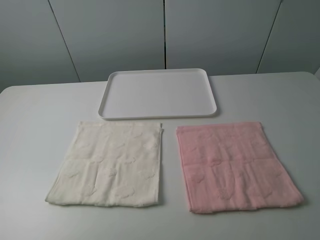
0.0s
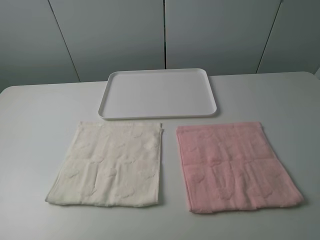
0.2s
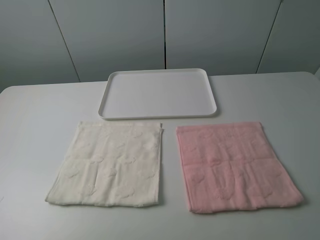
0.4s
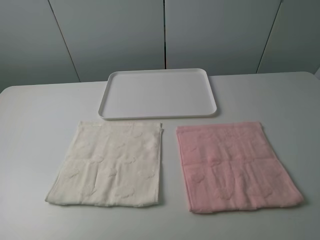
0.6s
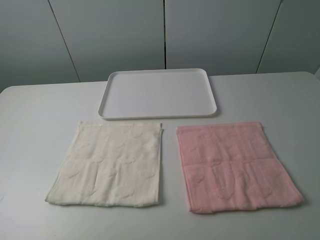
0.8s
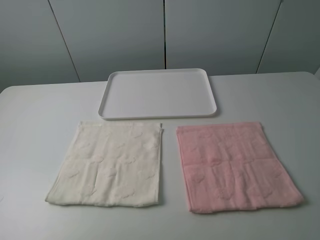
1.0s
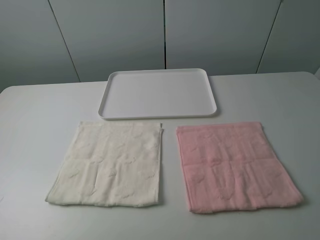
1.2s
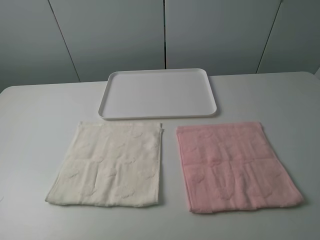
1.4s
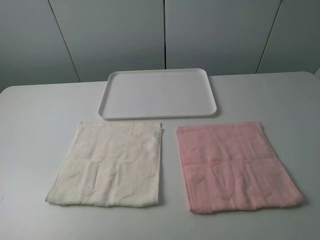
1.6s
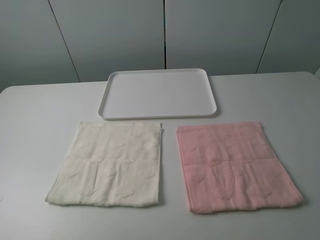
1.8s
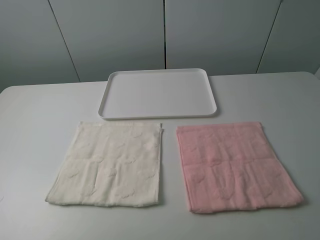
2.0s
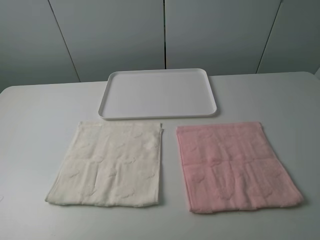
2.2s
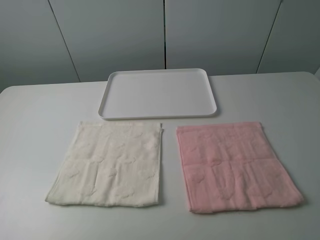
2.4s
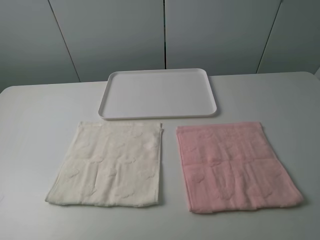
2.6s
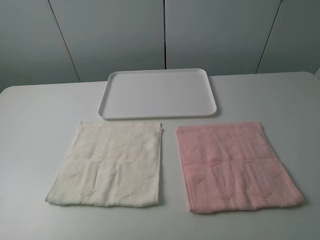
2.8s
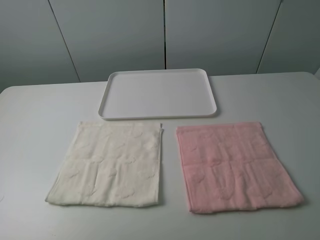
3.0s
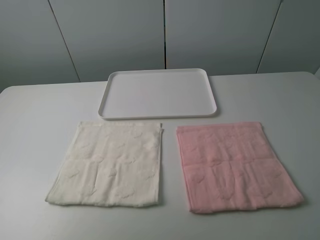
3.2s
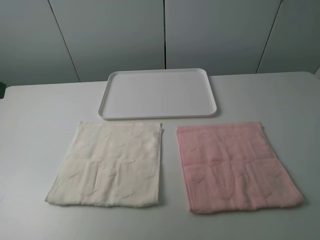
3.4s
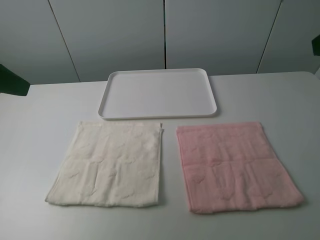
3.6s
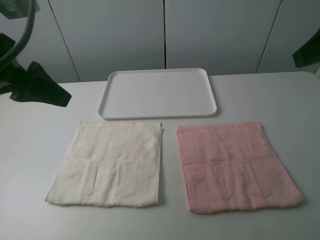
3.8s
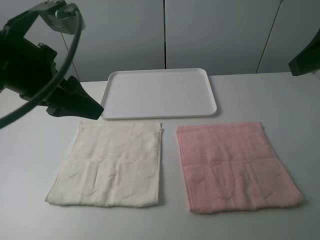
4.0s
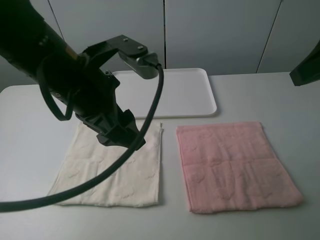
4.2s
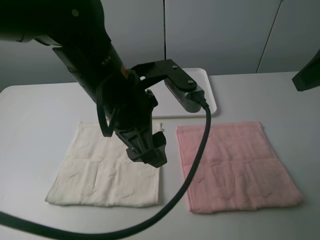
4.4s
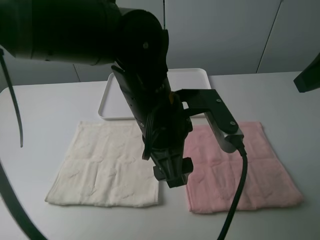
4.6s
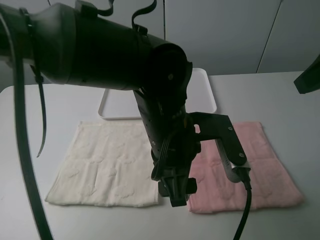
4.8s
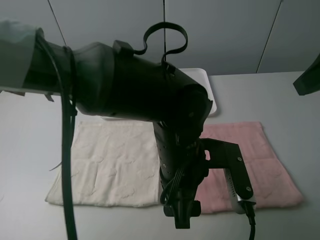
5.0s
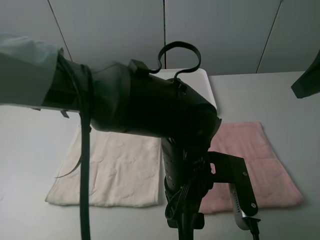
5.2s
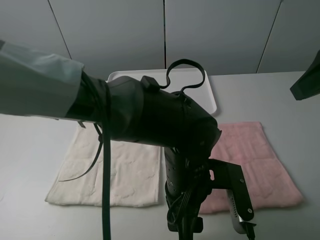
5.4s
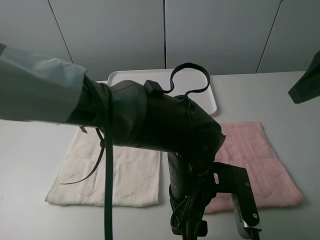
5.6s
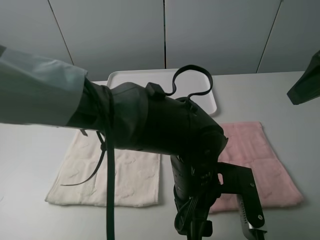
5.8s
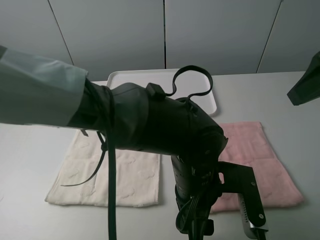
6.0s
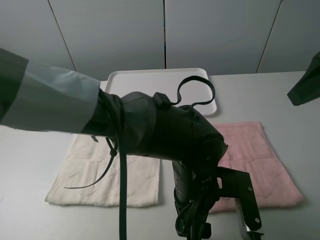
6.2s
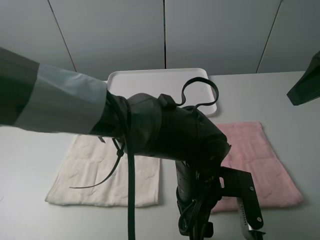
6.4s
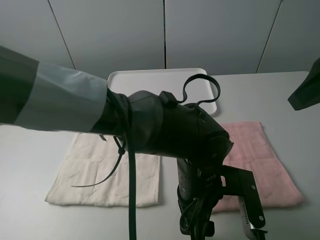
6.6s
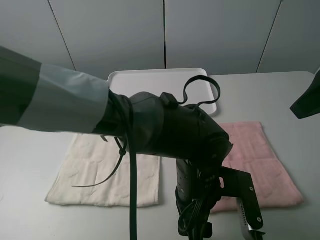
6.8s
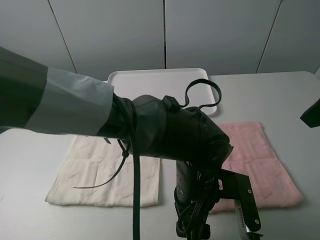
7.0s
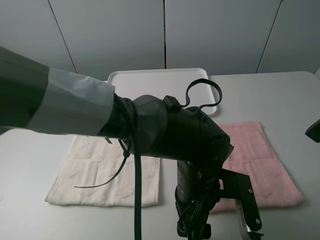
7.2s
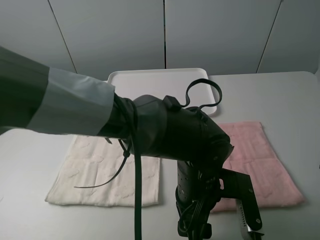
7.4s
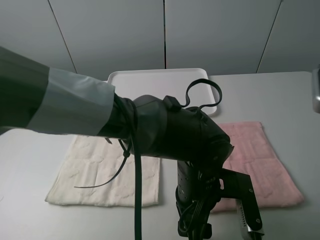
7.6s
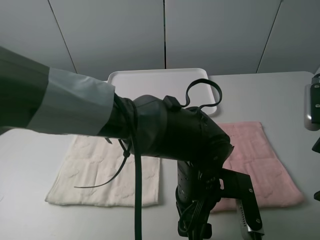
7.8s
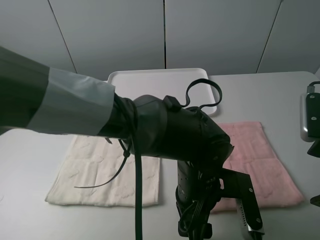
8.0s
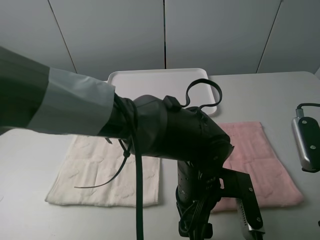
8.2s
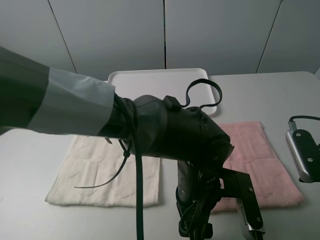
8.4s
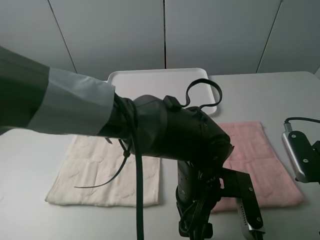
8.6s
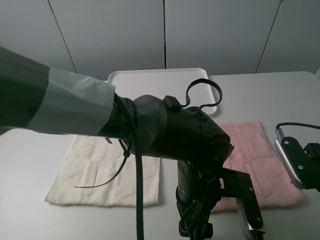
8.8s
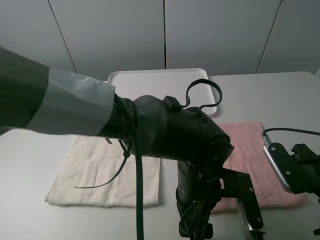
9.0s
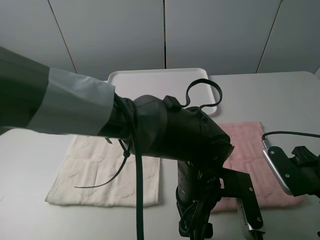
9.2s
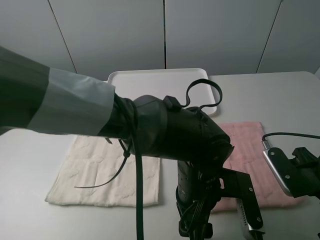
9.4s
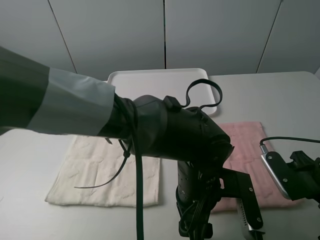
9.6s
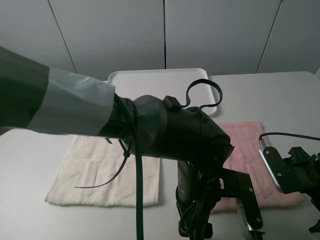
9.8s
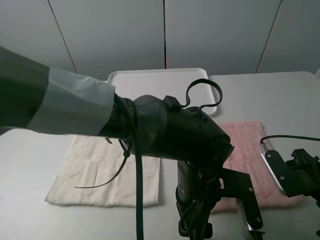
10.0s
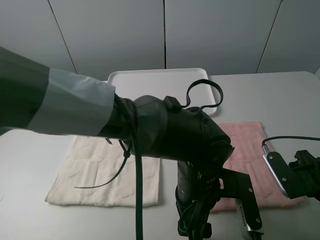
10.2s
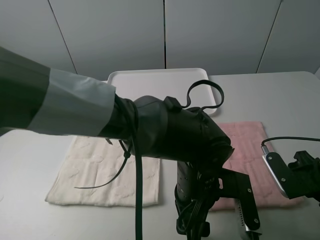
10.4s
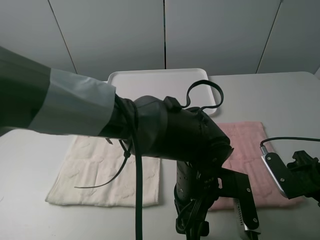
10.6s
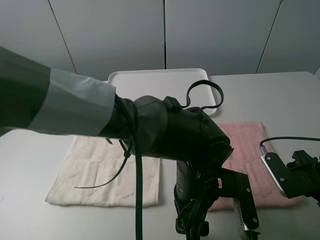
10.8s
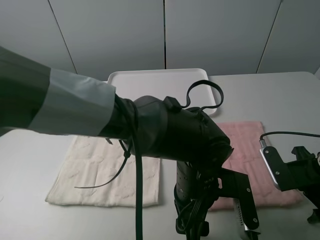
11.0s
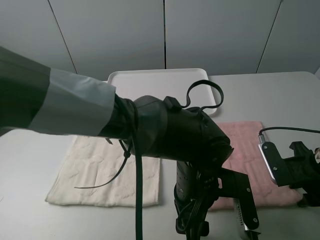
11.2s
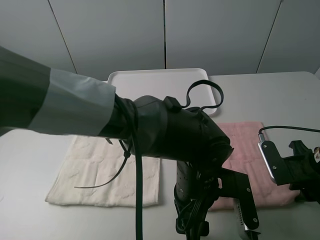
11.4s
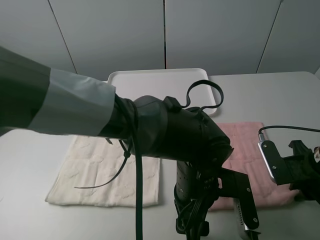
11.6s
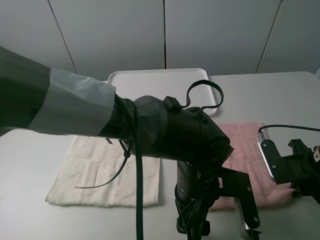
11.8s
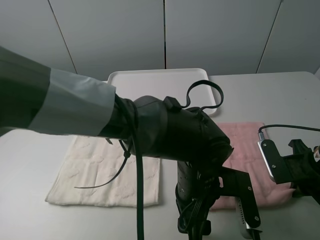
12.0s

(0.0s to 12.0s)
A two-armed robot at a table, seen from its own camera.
Task of the whole recording: fold one of the towels by two grippers and place it on the tray,then fold another towel by two grippers and place it on the folded towel.
0.0s - 1.6s: The two grippers keep their place.
3.0s - 4.4s: The left gripper travels to the right and forward by approximately 30 cm. Meanwhile the right gripper heads forward, covering approximately 15 cm.
4.4s - 6.0s: The left gripper is displaced downward, to the right and backward by some 15 cm.
6.0s - 7.6s: The right gripper travels downward by approximately 10 cm.
7.6s - 9.0s: The right gripper heads downward, covering approximately 10 cm.
9.0s - 10.4s: The grippers move only a little.
10.4s - 12.0s: The right gripper closes its fingers.

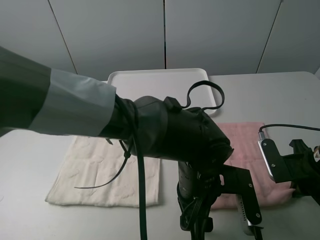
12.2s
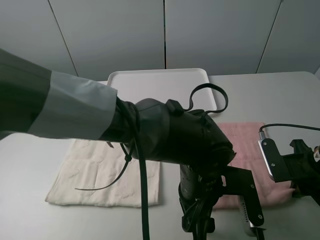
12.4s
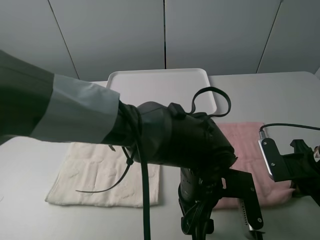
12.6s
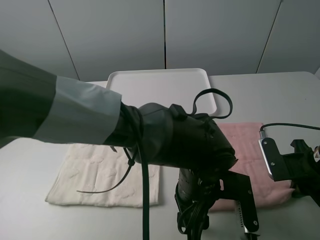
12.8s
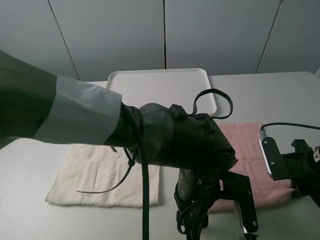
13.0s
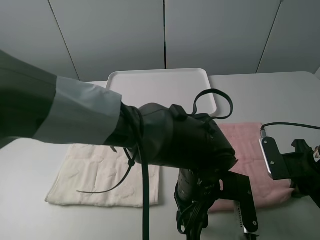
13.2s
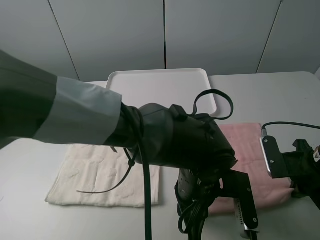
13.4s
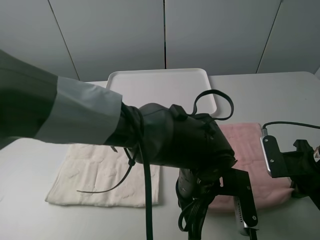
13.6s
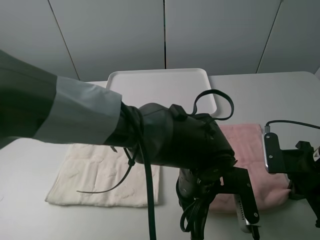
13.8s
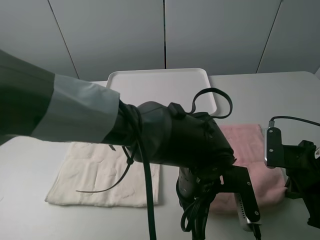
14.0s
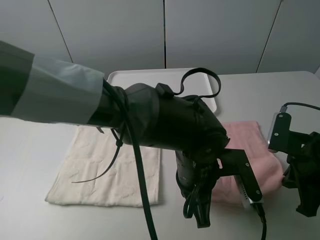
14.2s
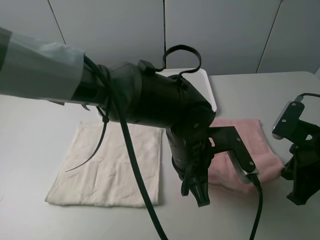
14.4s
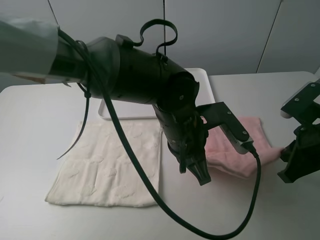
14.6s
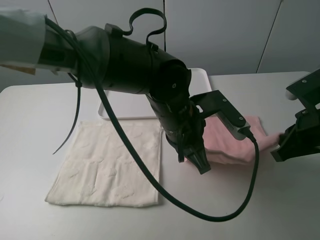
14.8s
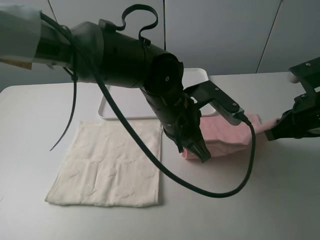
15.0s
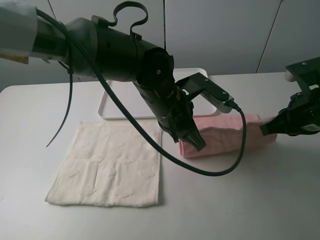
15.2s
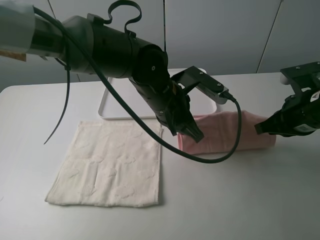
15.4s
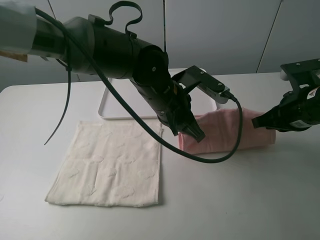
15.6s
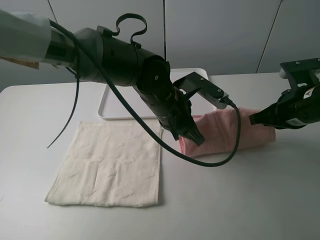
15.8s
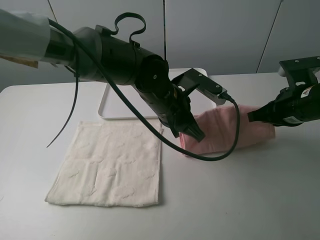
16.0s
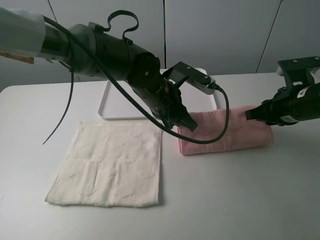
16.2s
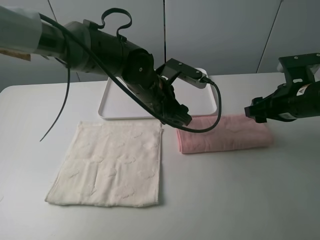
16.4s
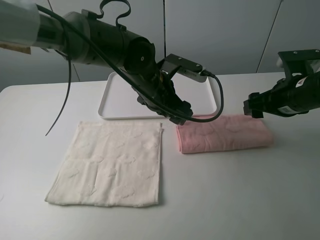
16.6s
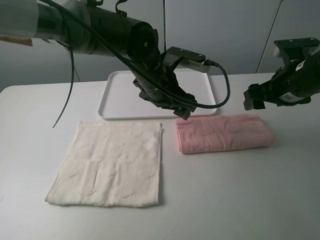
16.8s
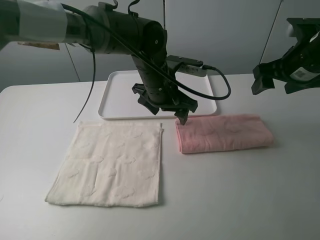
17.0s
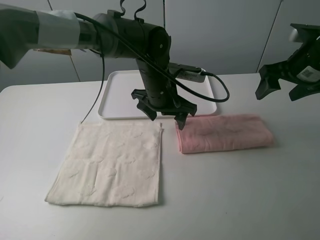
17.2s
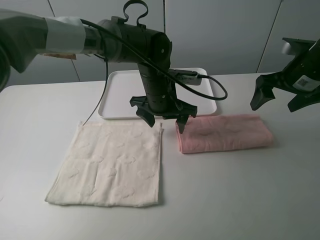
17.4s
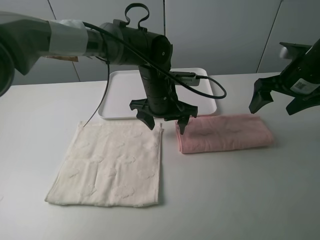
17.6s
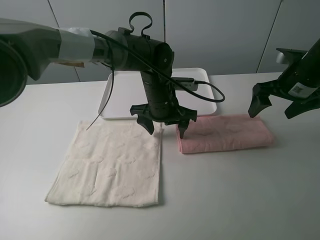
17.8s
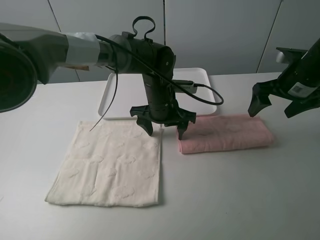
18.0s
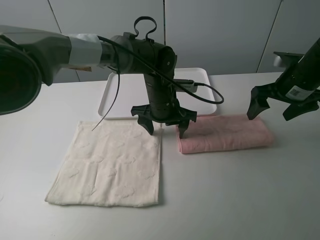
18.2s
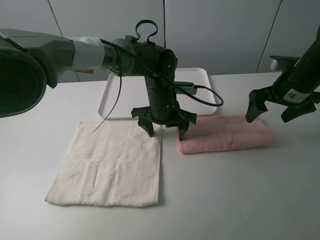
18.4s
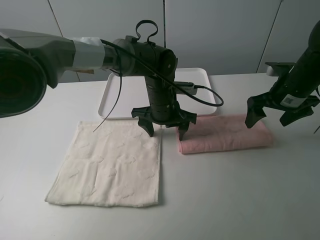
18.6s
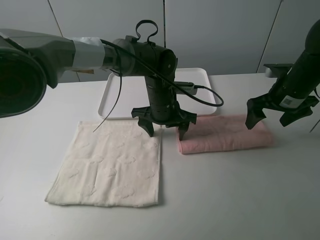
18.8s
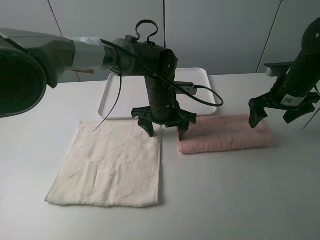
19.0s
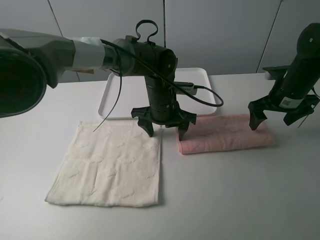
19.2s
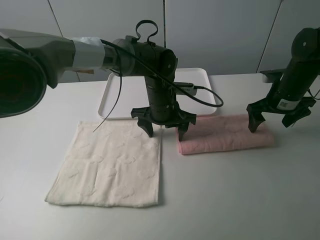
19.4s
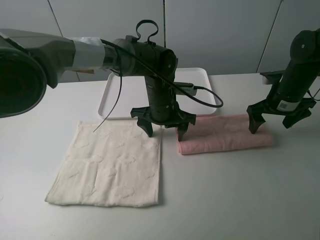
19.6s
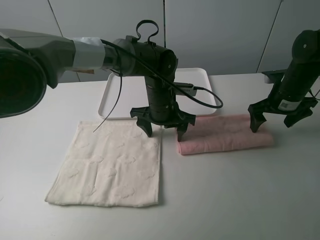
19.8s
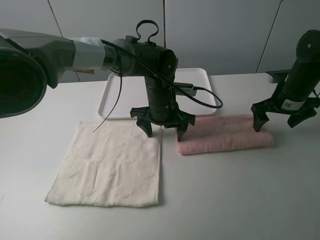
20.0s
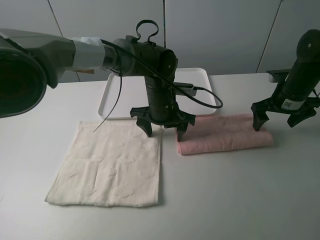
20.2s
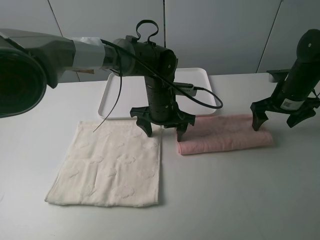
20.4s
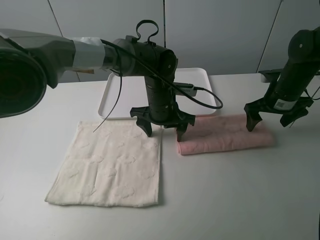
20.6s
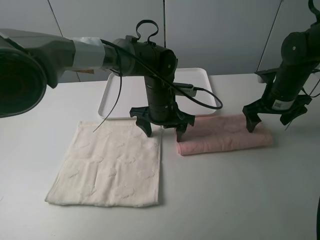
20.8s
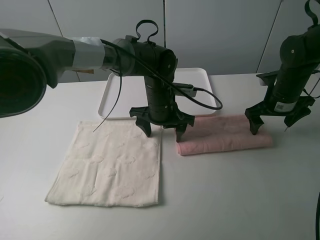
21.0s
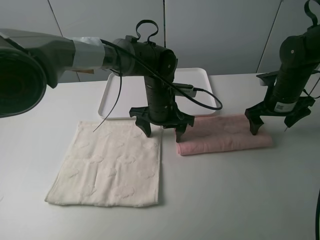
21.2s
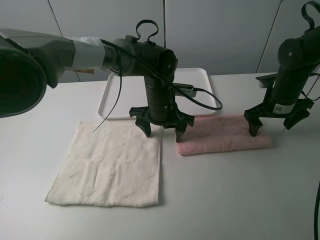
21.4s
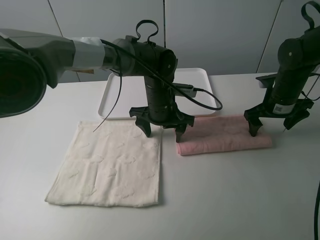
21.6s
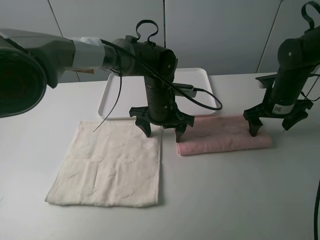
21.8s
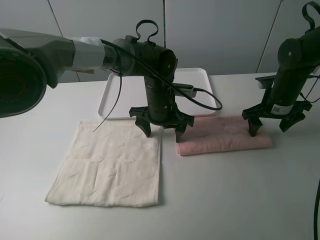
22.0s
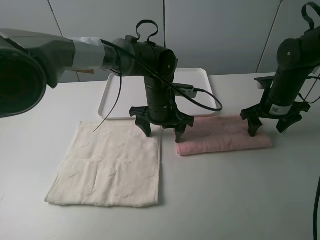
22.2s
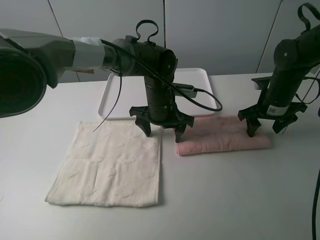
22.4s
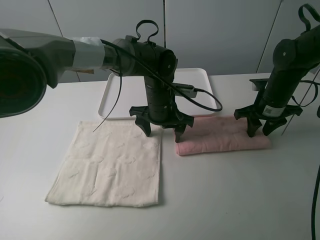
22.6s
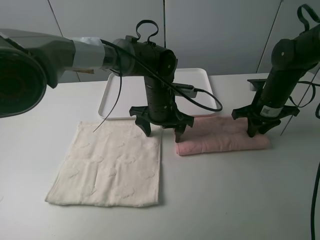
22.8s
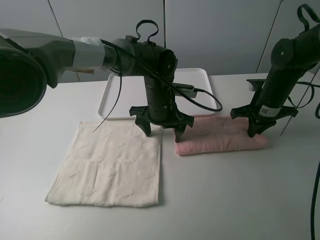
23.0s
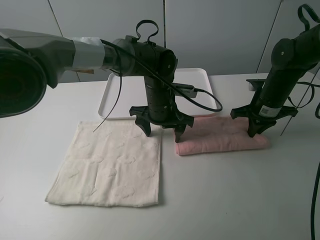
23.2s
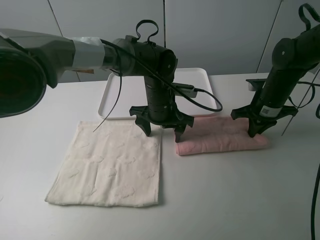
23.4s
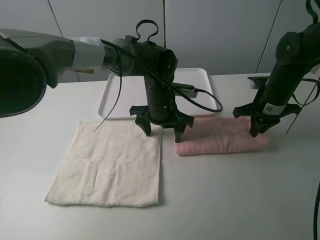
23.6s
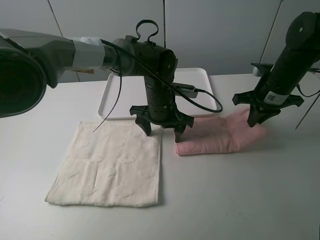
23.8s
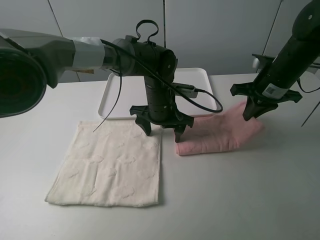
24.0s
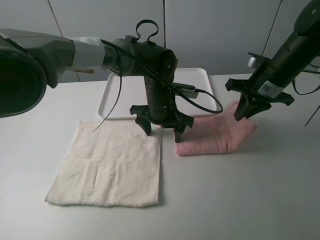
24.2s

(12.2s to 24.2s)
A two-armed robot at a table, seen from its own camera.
Task of the whole recording: fold one of the towels by two grippers and place it on the tray,then fold another towel by two grippers and place it on the folded towel.
Step, 13.8s - 16.4s: Fold the pink towel upwards with the left gripper.
Step, 16.8s - 18.4s: Press the pink towel with the left gripper.
Step, 18.6s - 23.2s: Grasp the pink towel with the right gripper.
12.2s - 13.8s: The left gripper closes up.
13.8s - 15.2s: The right gripper is displaced upward and forward by approximately 10 cm. Meanwhile the left gripper heads forward, upward and to the left, covering approximately 15 cm.
15.2s - 16.6s: The two grippers go some 5 cm forward. The right gripper opens up; the left gripper opens up.
16.6s - 18.2s: The left gripper goes about 5 cm downward; the right gripper moves about 5 cm.
18.2s - 19.8s: The right gripper heads downward, covering some 5 cm.
19.8s - 21.2s: There are only small adjustments of the grippers.
21.2s - 22.6s: The right gripper closes its fingers.
22.6s - 24.2s: The right gripper is displaced upward by approximately 10 cm, and closes its fingers.
